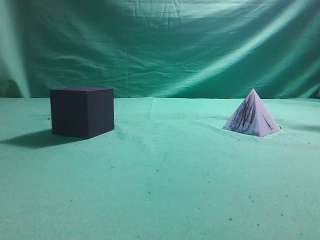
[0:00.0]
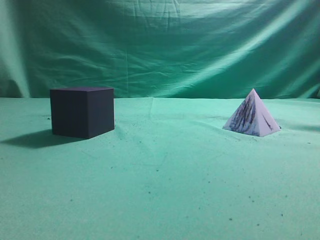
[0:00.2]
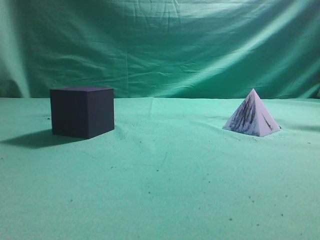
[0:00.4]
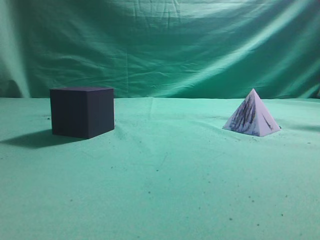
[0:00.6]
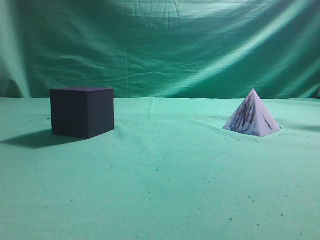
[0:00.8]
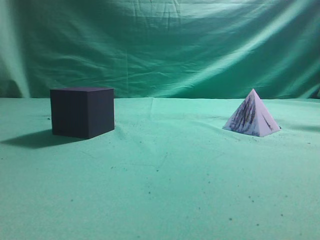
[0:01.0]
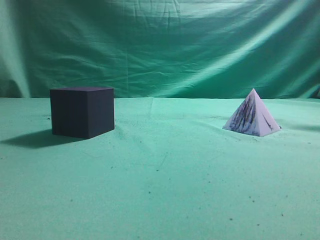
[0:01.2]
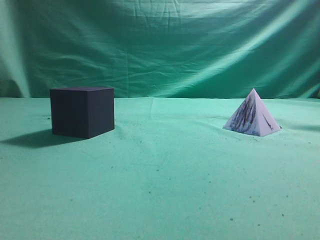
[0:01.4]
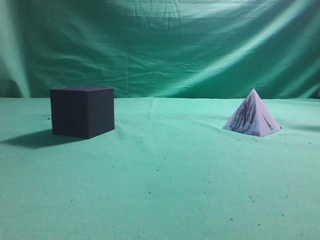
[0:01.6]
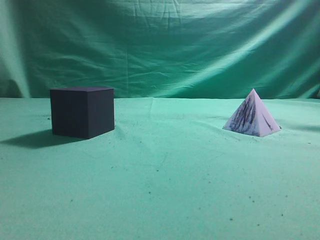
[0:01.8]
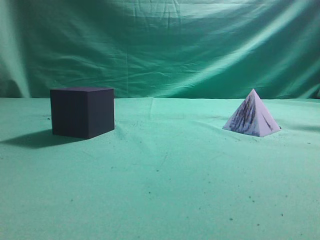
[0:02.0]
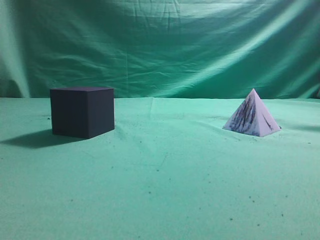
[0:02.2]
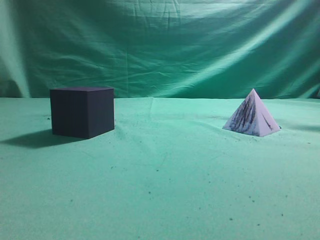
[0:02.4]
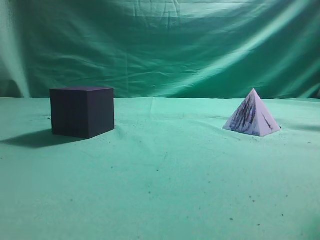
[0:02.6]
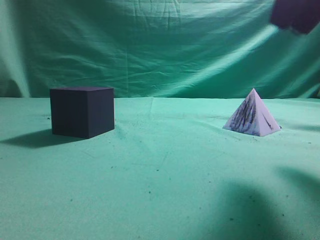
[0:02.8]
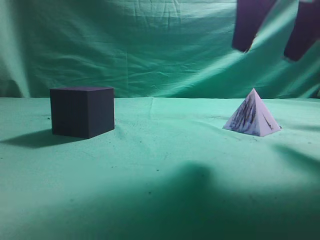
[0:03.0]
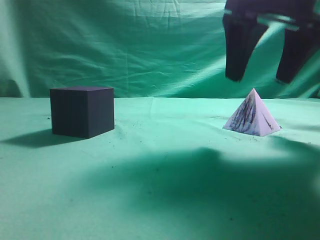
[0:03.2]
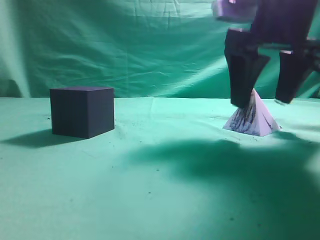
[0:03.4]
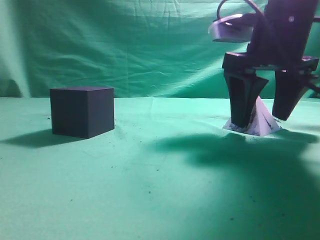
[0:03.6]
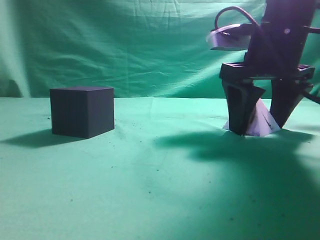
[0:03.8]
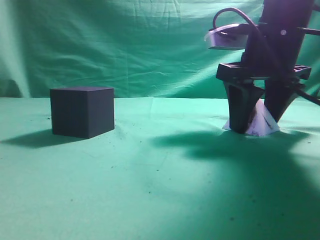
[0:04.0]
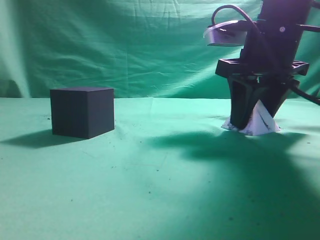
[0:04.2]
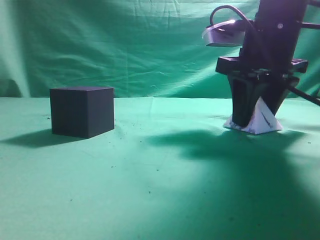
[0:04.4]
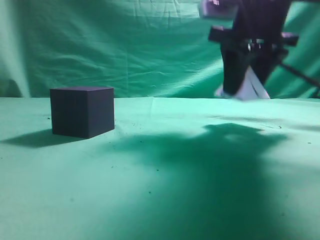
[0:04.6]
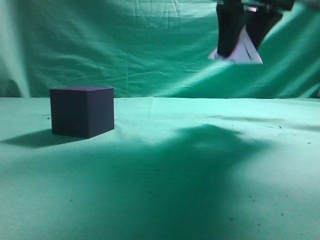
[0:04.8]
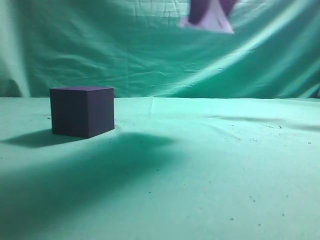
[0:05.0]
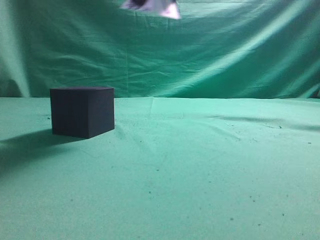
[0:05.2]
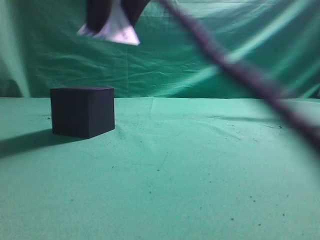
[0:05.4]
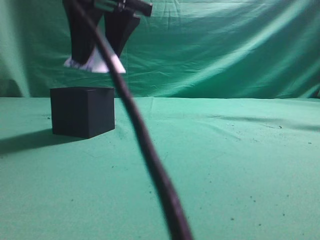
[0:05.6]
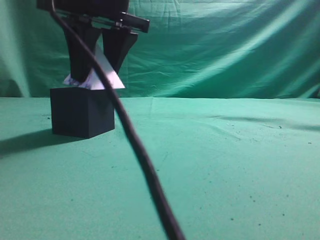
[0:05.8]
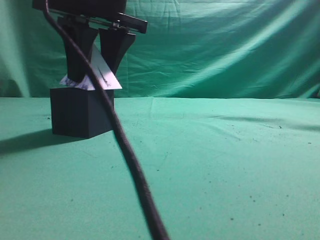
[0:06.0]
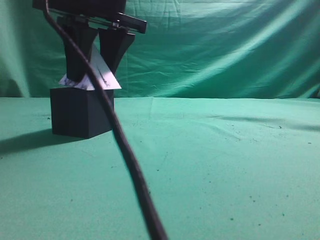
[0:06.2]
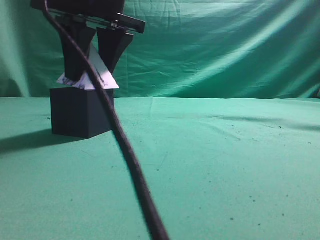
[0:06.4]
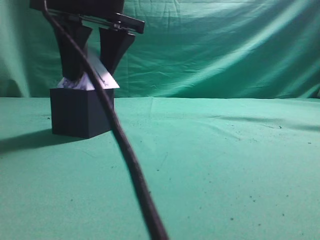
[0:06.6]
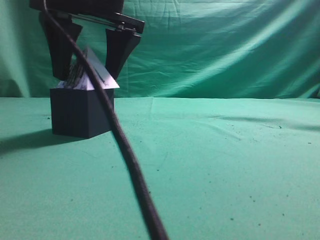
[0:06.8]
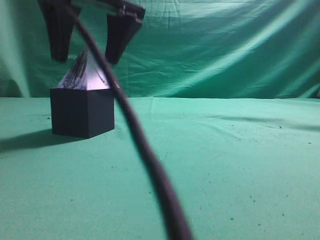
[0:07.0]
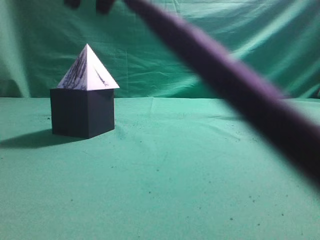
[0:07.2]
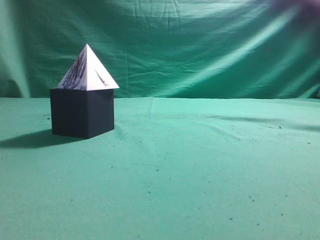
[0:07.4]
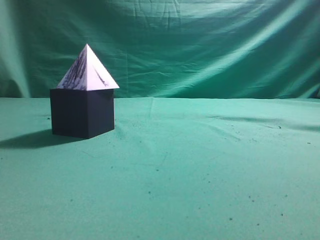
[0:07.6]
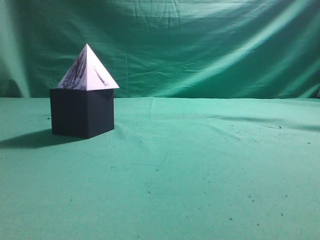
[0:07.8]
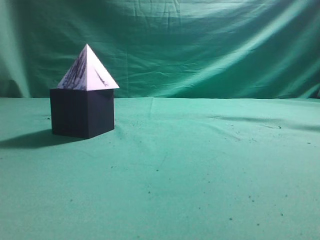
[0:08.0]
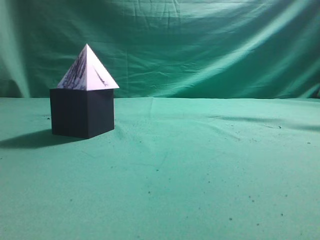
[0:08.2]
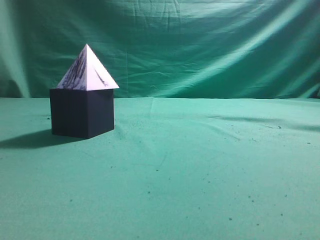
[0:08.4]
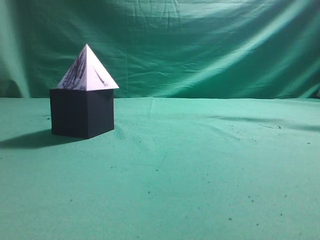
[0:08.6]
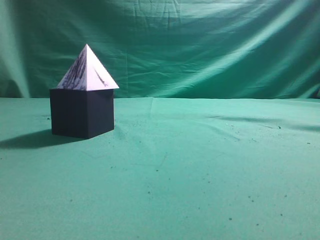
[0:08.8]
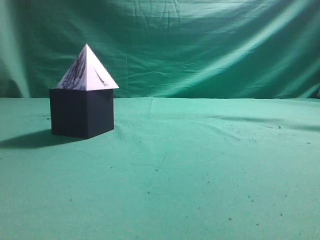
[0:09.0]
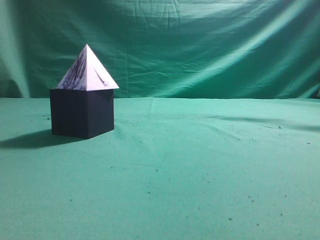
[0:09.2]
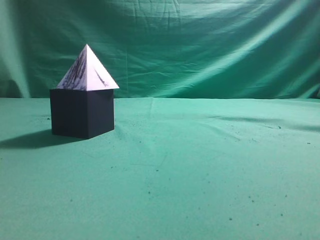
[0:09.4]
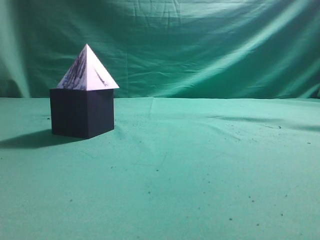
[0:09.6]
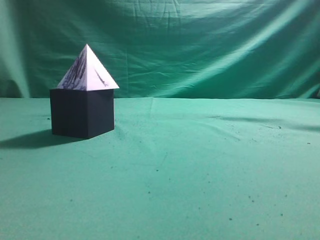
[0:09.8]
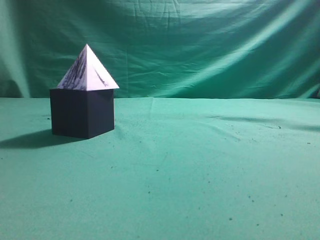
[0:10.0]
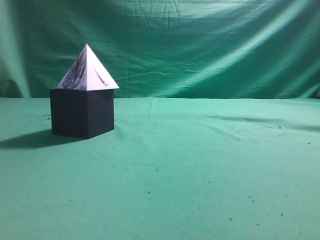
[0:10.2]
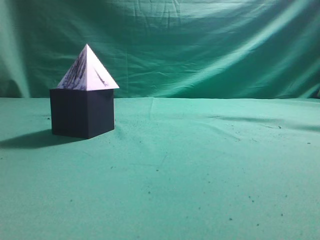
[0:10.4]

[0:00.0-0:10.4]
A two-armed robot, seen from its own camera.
Task of the whole recording: pick up the square pyramid from the table and place it on the cube block.
Step, 0:00.0 to 0:04.4: Grasp the triangular block.
Step, 0:04.6 to 0:07.0: Place the block onto the cube-shaped block.
0:01.4 to 0:03.0: The right gripper travels forward and to the left by roughly 25 cm, and opens up.
0:03.0 to 0:04.4: The right gripper is displaced downward and forward by some 10 cm, and closes.
0:04.4 to 0:06.0: The right gripper moves to the left, about 20 cm.
0:06.0 to 0:07.4: The right gripper travels upward by about 15 cm, and closes its fingers.
0:07.4 to 0:09.0: The right gripper goes approximately 35 cm to the right and backward.
